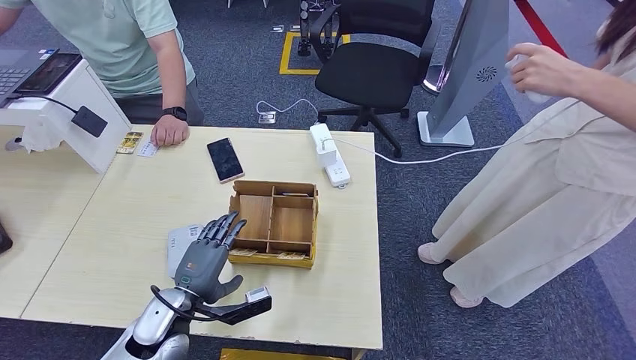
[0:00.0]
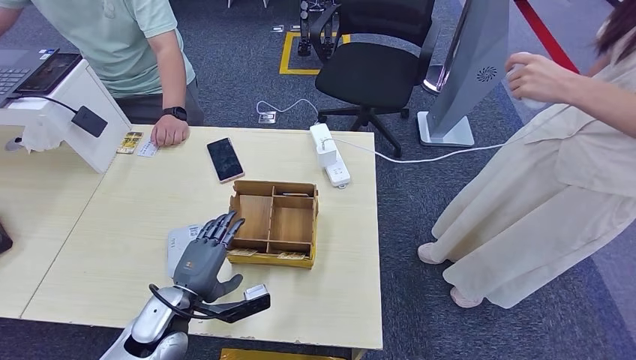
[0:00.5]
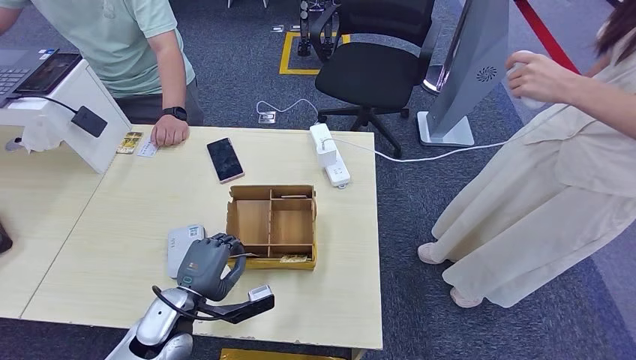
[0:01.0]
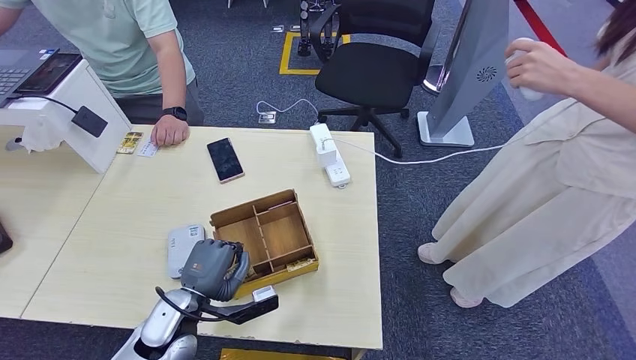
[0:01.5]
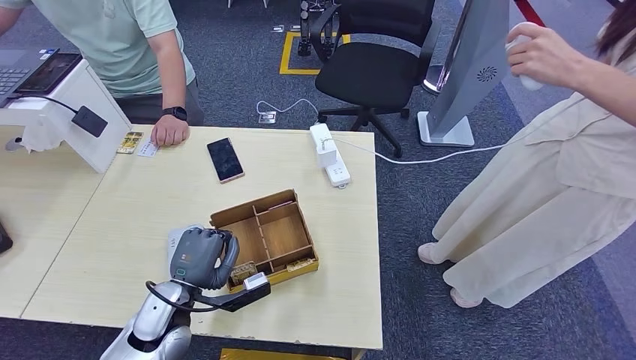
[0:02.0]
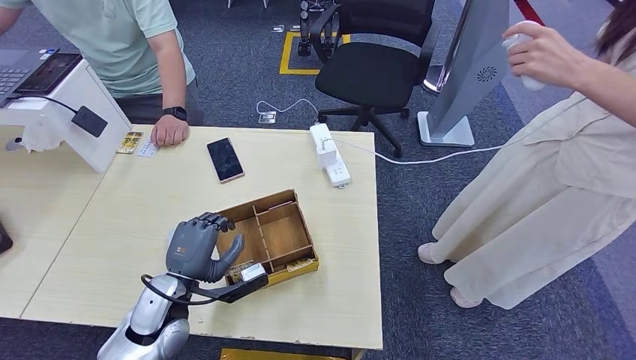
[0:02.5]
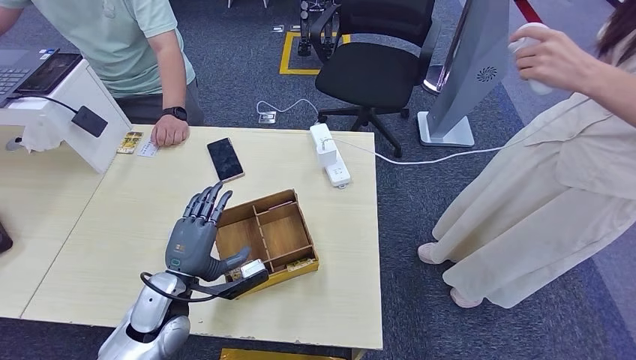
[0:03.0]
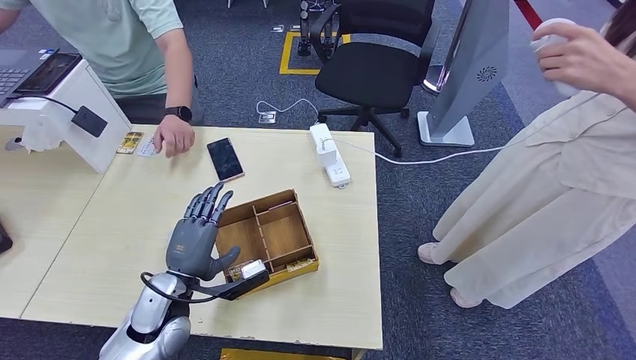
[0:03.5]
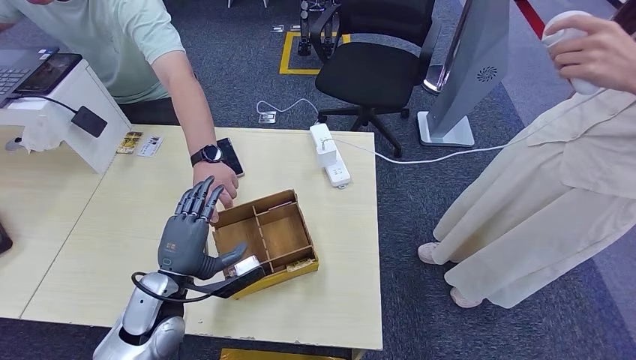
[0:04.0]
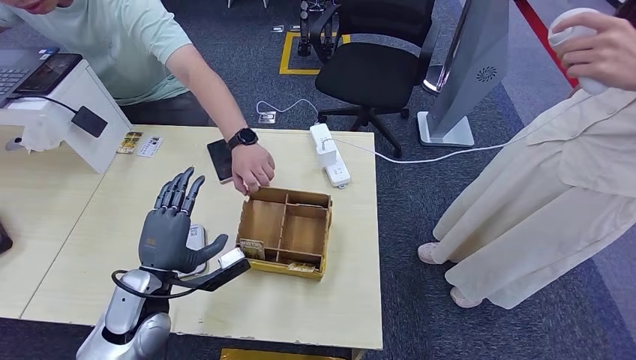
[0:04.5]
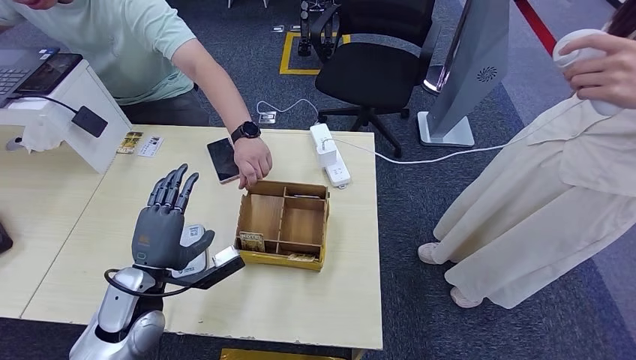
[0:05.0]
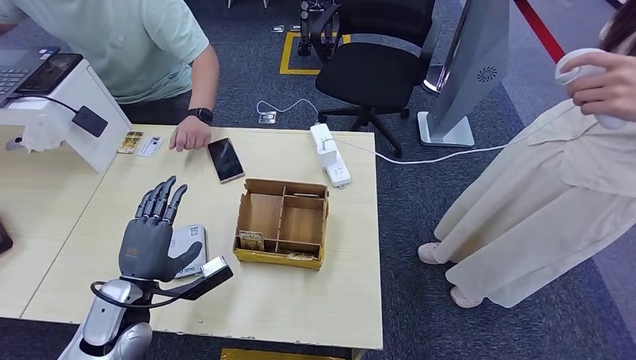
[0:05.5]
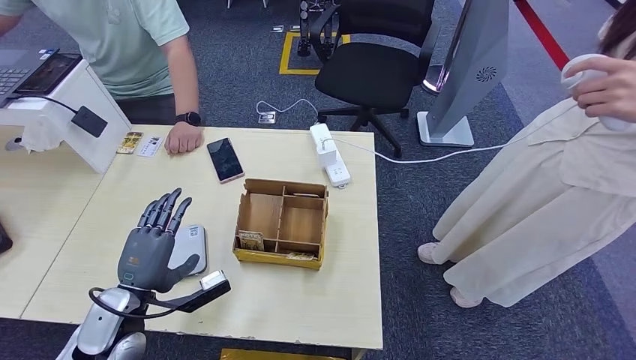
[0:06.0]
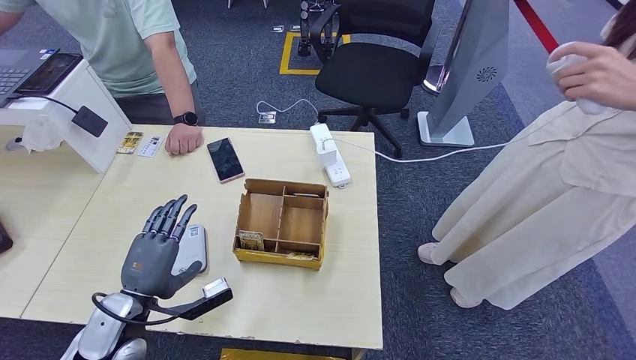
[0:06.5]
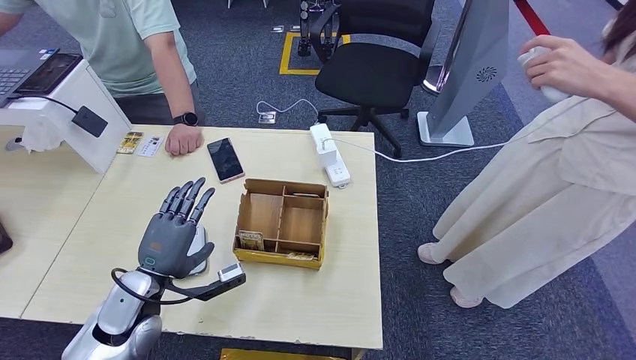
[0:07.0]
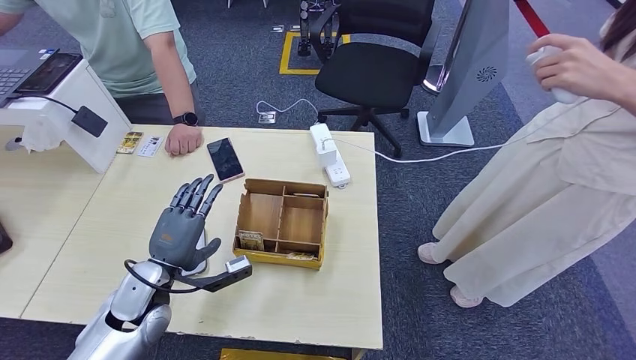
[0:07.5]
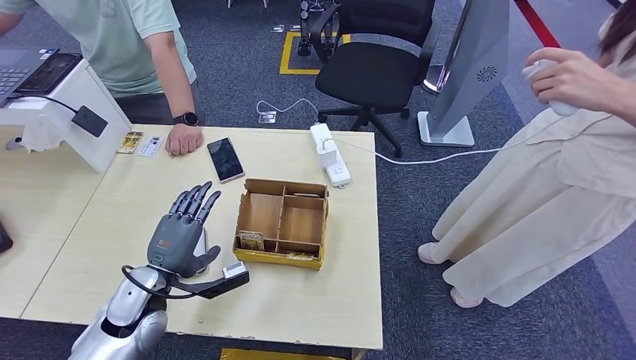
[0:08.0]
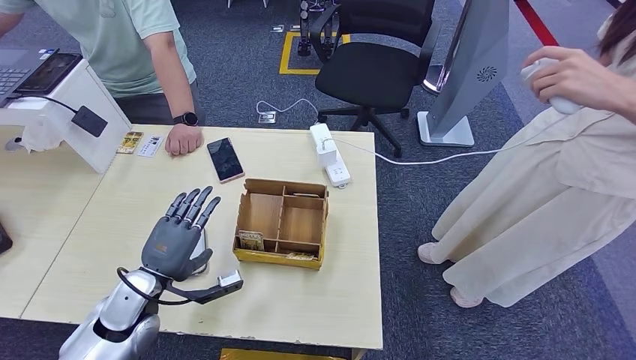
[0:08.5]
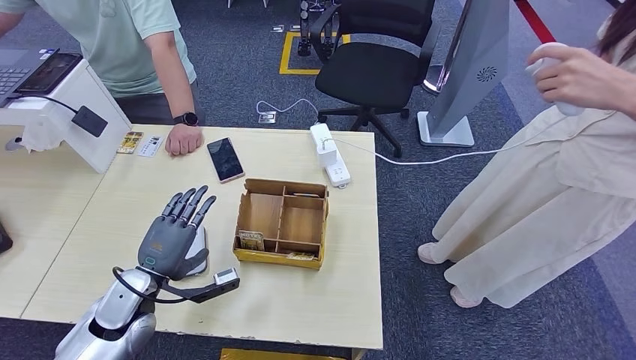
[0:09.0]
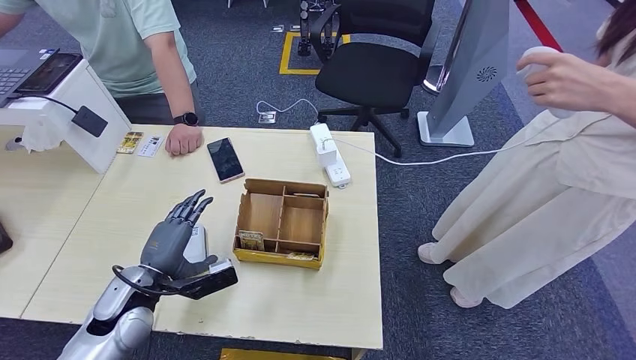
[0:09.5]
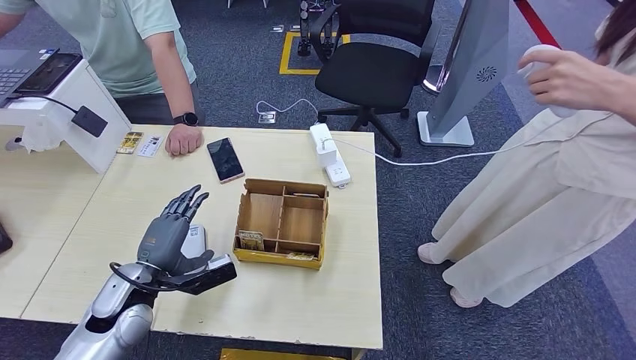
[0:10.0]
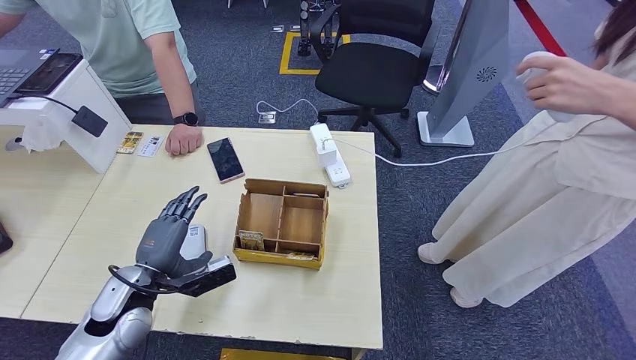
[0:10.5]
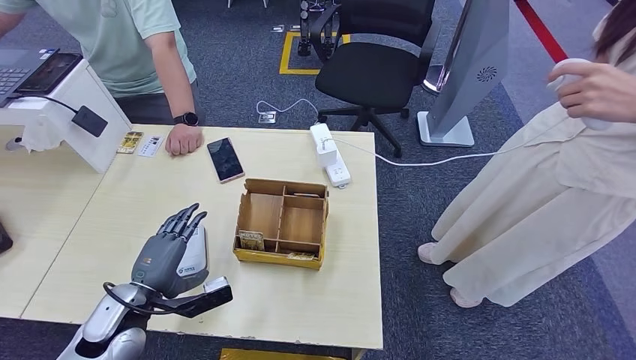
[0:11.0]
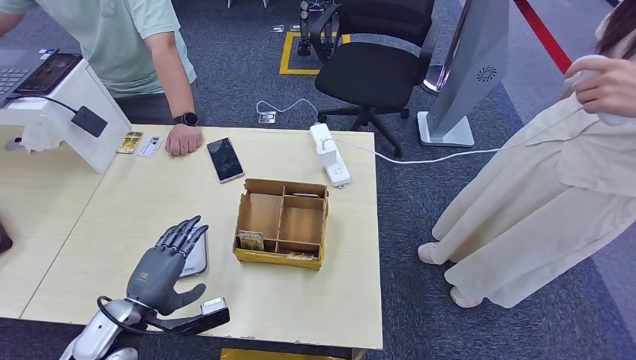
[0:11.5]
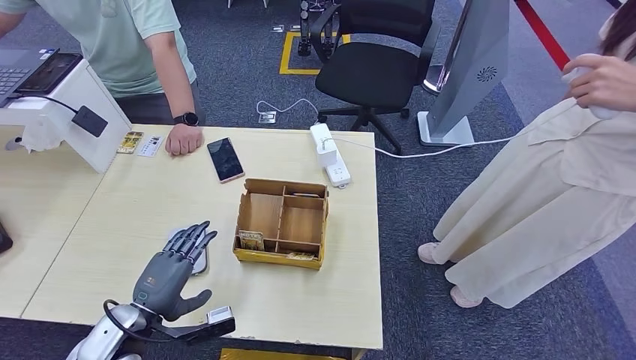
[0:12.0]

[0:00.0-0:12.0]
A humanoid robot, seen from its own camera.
0:00.0 to 0:04.0: There are only small adjustments of the hands.
0:04.0 to 0:06.0: The left hand is displaced to the left by about 5 cm.
0:06.0 to 0:08.0: The hands stay close to where they were, moving slightly.
0:08.0 to 0:10.0: The hands make only small movements.
0:10.0 to 0:12.0: The left hand travels backward by roughly 5 cm.

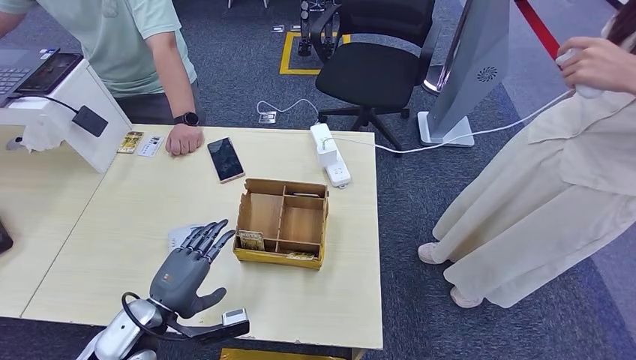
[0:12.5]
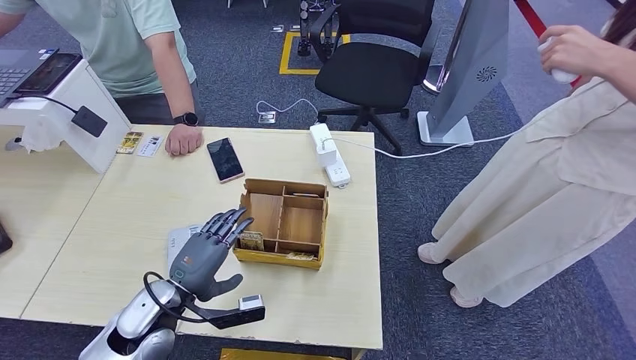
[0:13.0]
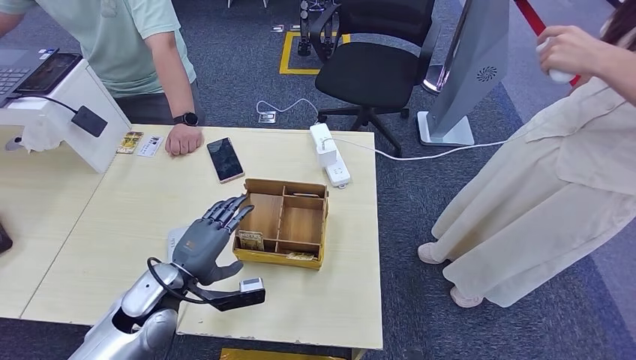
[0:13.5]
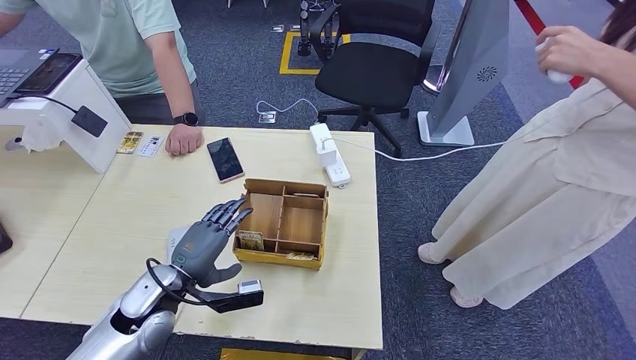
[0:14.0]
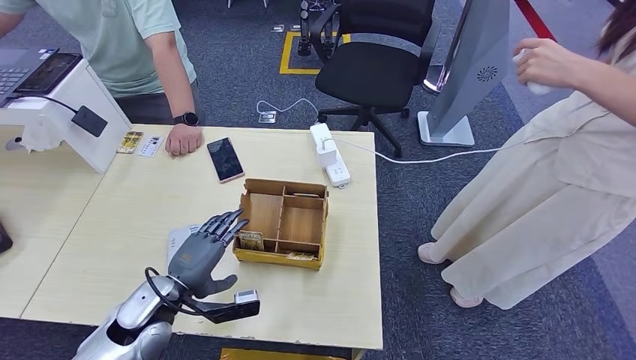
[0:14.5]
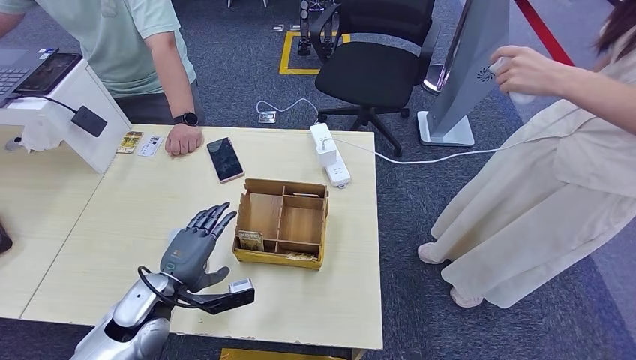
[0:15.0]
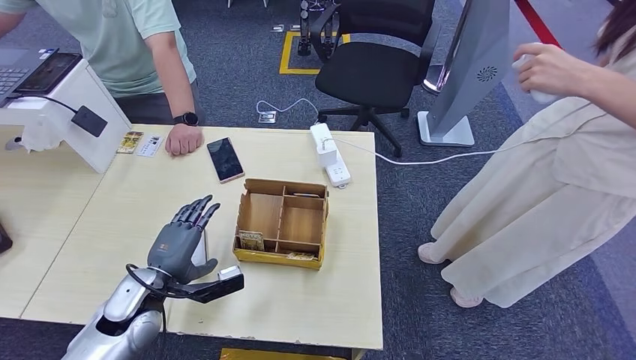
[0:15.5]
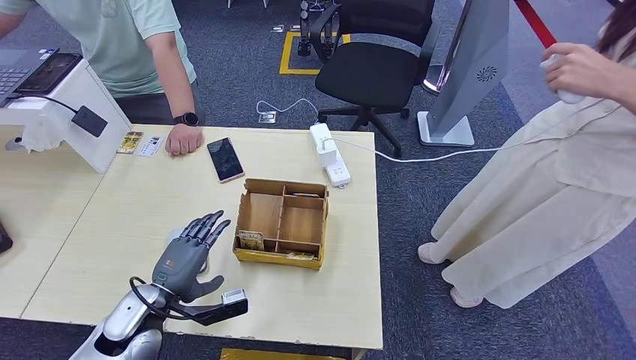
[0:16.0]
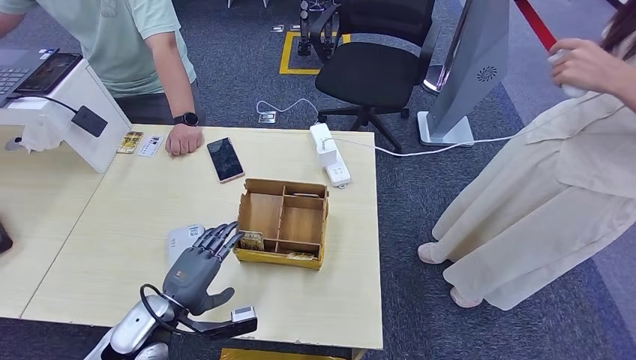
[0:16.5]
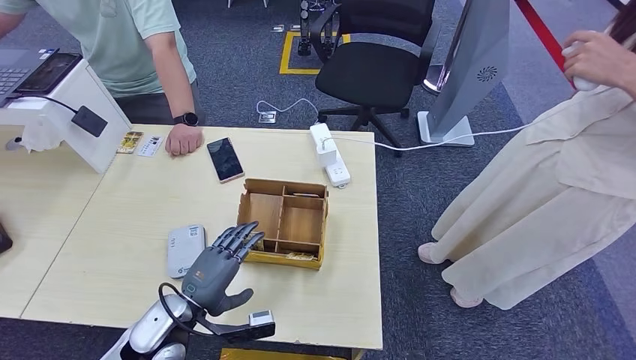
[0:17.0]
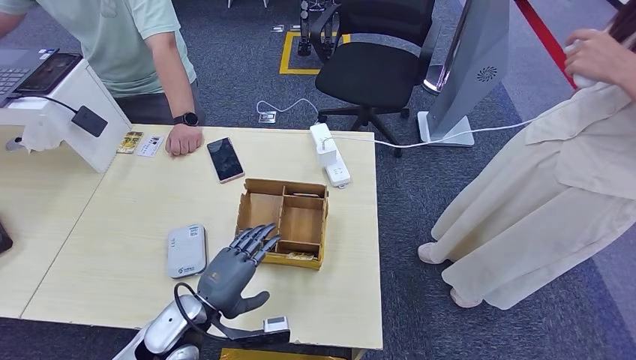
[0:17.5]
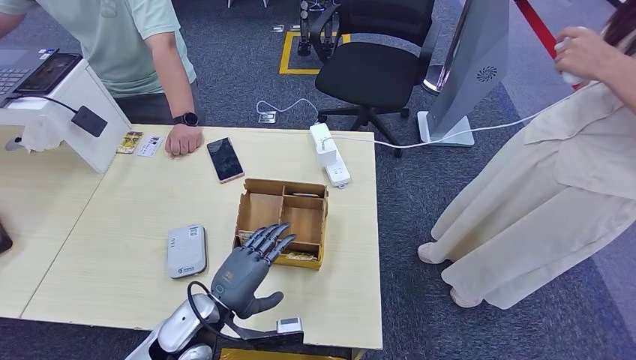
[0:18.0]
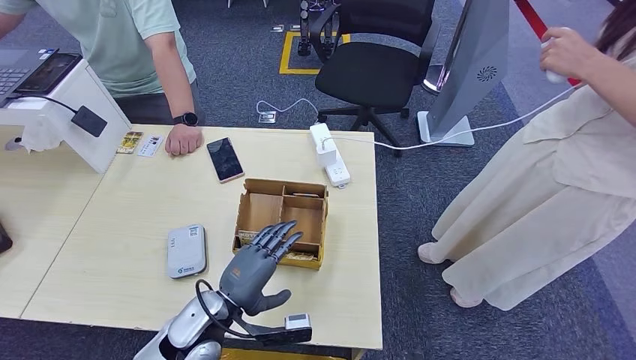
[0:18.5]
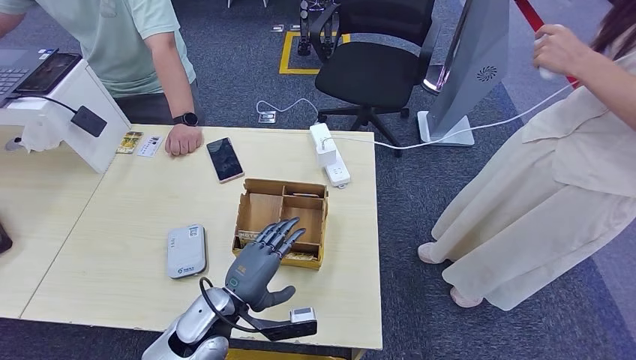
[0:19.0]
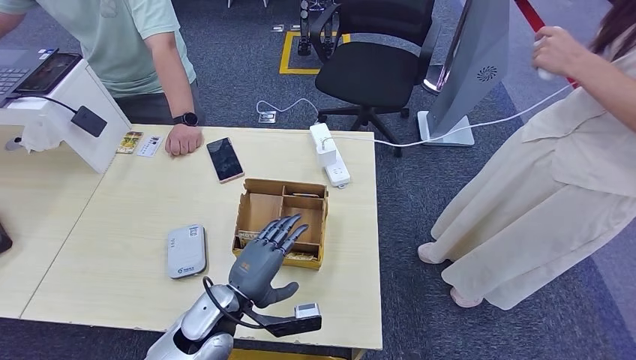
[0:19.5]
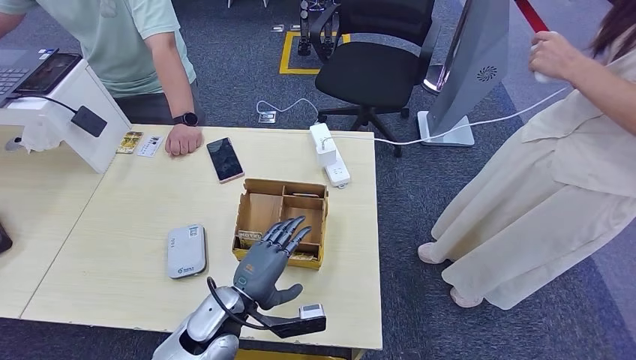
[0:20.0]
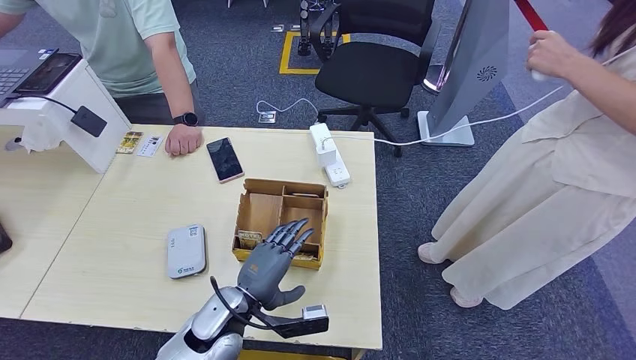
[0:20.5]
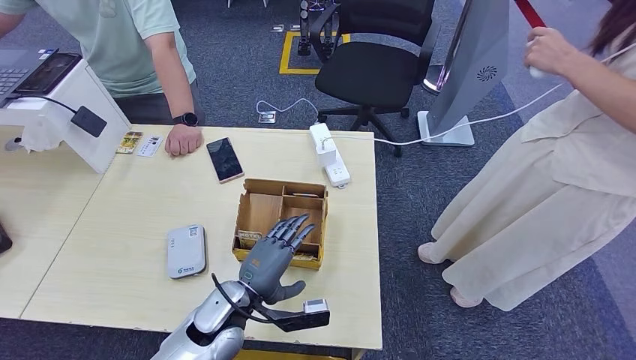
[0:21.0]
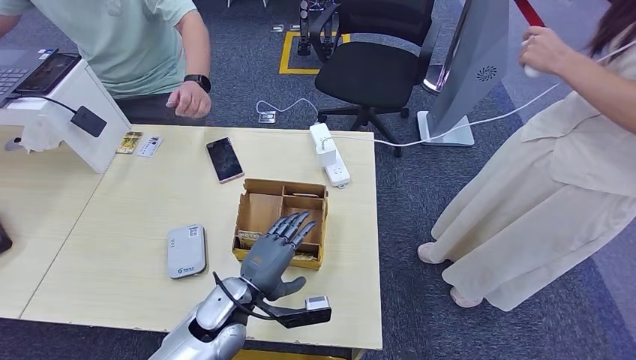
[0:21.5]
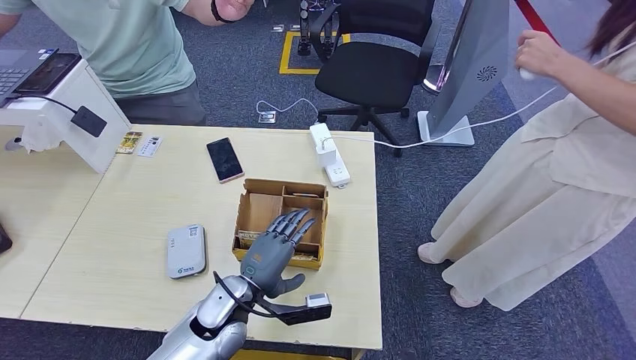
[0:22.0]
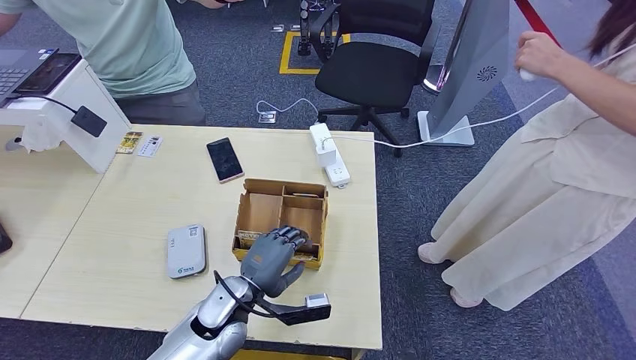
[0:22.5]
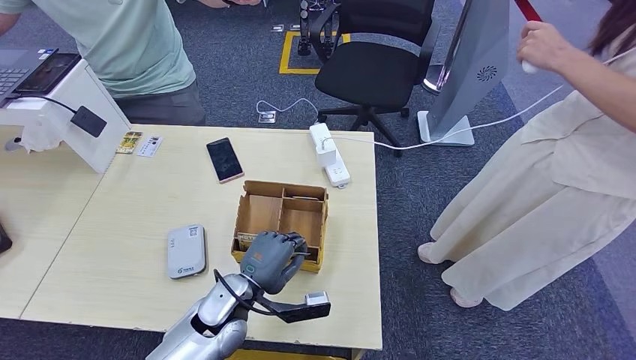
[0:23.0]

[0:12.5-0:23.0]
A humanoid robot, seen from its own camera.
Step, 0:12.5 to 0:23.0: Pick up the room key from the key card box.
0:14.5 to 0:16.5: The hands make only small movements.
0:16.5 to 0:19.0: The left hand is displaced to the right by some 10 cm.
0:19.0 to 0:23.0: The hands move only a little.
